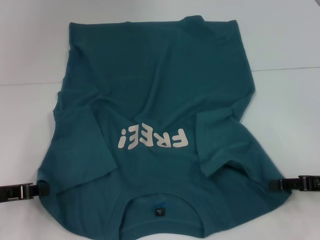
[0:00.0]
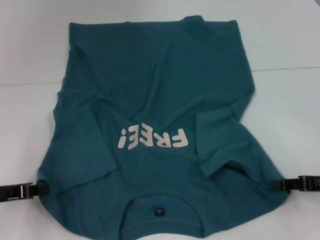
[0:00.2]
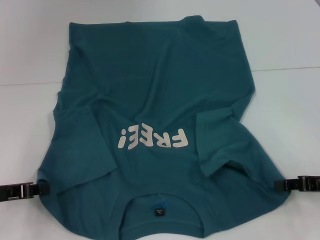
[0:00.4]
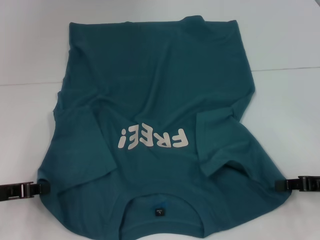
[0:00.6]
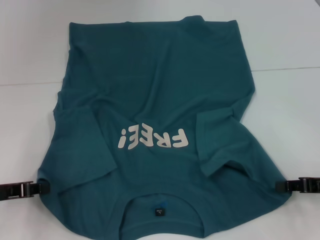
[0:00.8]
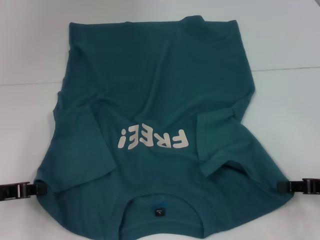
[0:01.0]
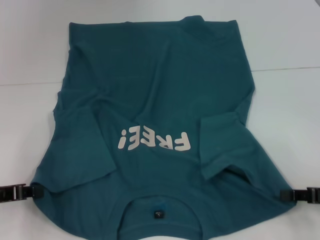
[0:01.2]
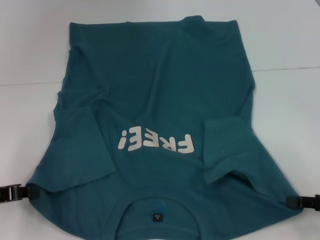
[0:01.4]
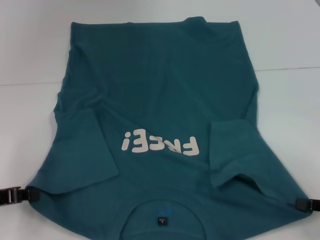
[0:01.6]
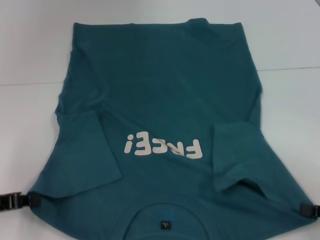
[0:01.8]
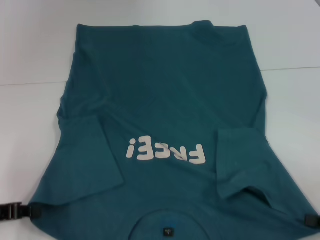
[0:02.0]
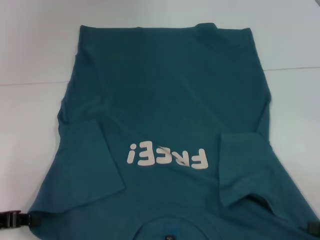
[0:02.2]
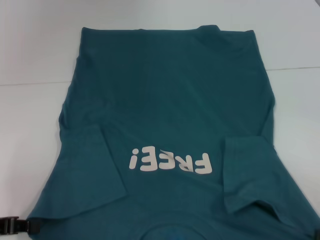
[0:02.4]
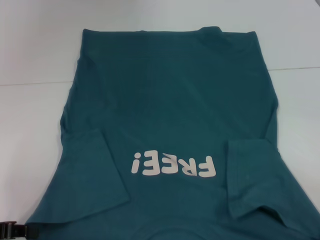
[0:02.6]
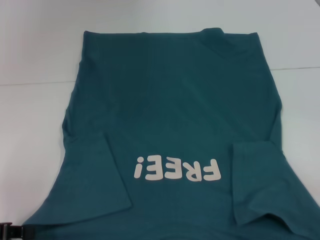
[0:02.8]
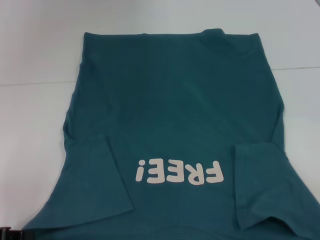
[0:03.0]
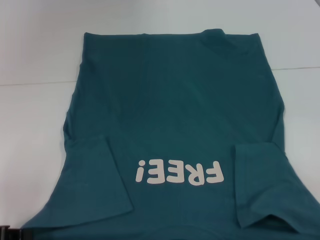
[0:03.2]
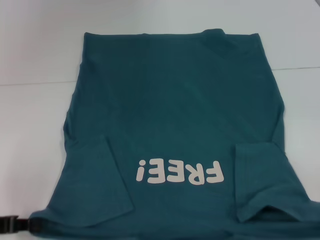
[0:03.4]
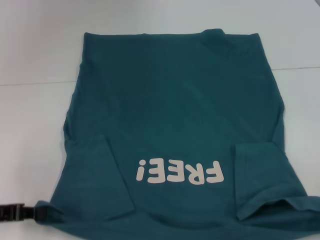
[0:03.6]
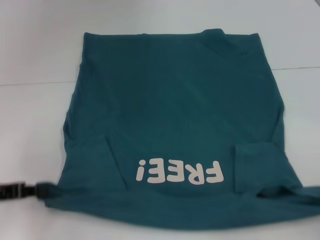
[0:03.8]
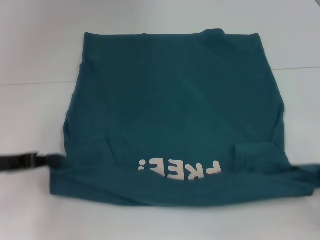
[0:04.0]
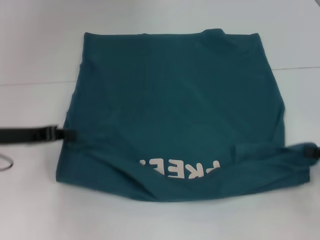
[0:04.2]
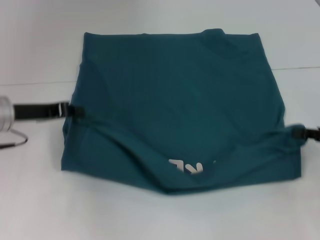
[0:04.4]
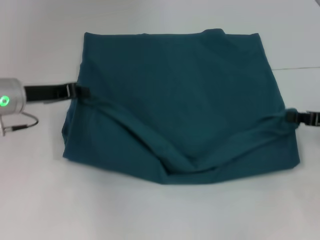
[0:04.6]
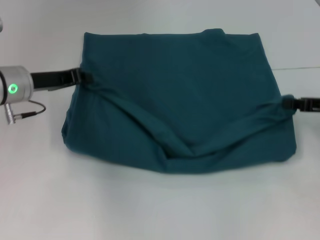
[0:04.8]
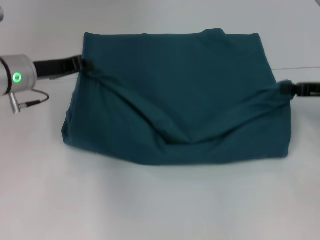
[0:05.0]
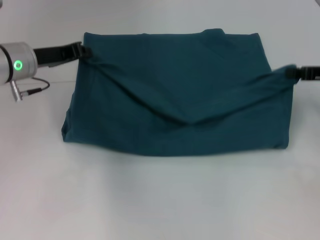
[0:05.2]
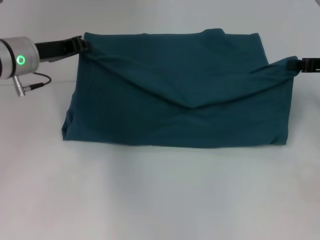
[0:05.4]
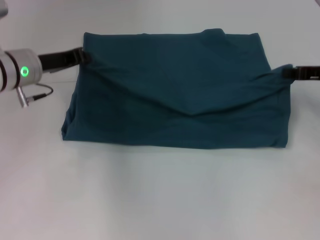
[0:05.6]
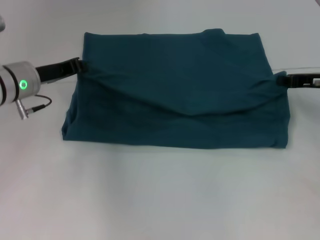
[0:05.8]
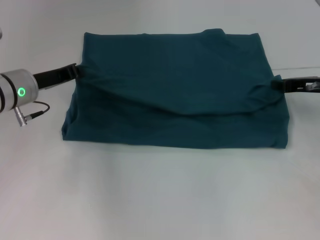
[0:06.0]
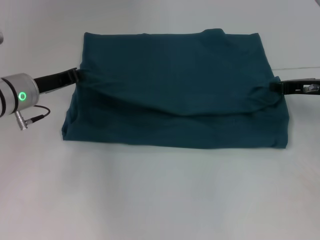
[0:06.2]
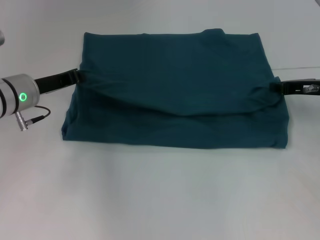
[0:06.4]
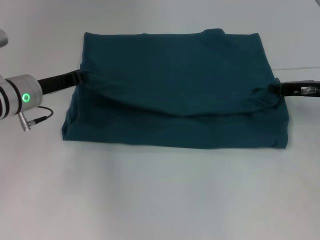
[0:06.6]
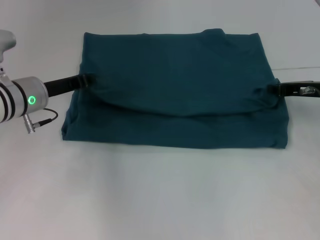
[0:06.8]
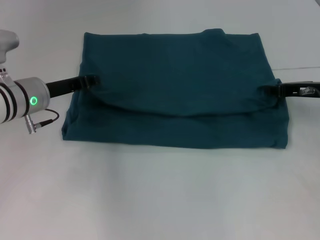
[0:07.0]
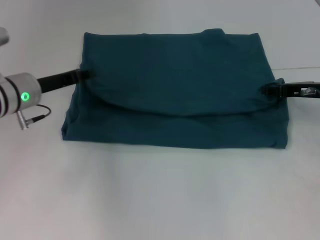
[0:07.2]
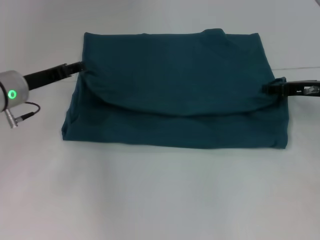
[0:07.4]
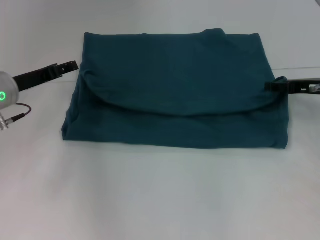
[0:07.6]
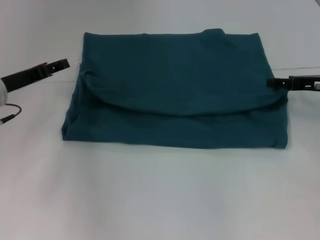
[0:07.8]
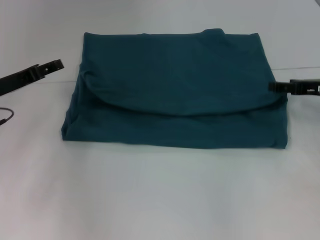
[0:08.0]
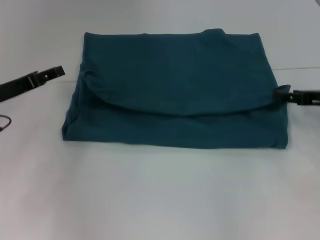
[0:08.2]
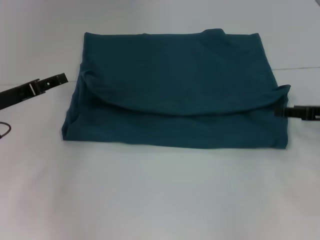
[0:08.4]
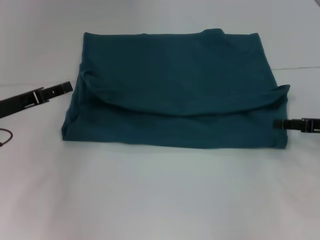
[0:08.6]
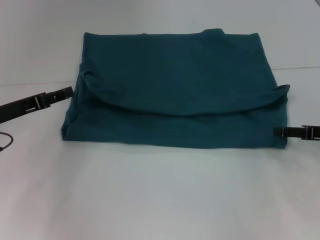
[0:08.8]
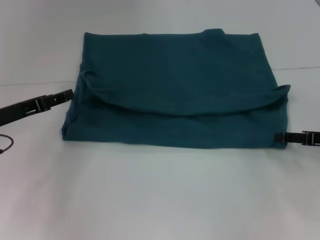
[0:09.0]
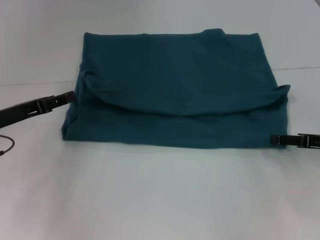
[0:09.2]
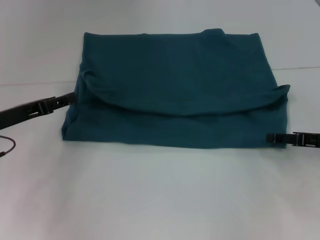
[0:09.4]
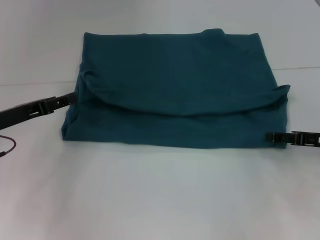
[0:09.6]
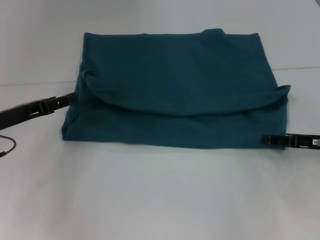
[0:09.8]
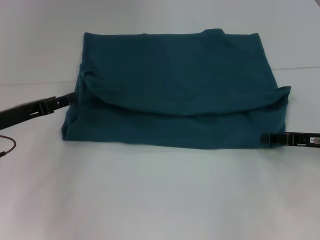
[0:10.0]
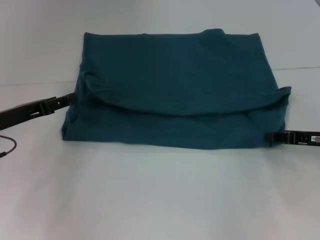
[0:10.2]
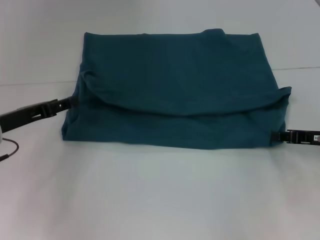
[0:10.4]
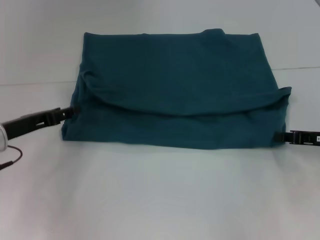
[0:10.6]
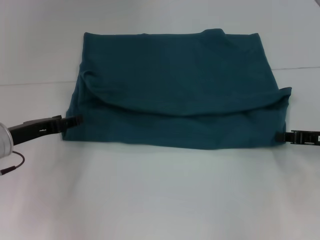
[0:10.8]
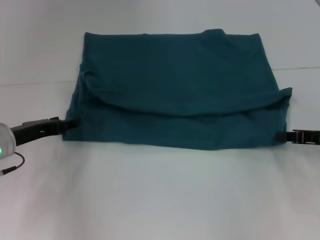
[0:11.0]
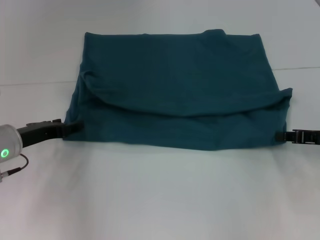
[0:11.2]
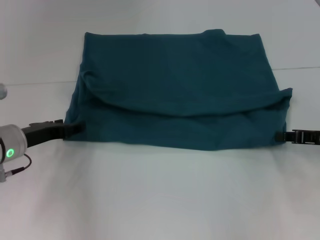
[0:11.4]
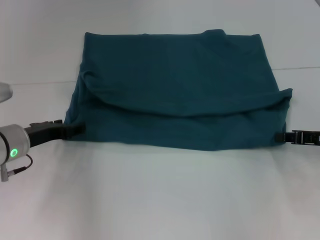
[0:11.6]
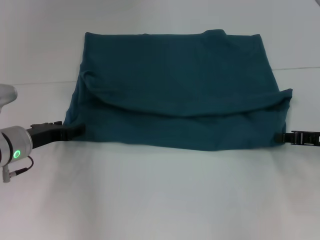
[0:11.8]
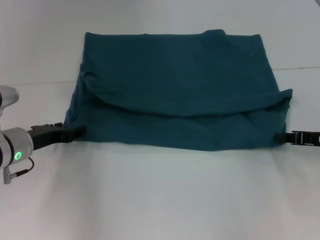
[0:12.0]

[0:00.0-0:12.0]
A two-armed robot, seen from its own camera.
Step, 0.6 to 8.2 s: Fold the clothes to the left.
Step, 0.6 to 8.2 s: Fold the clothes to the right.
0.0 to 1.6 s: The right gripper heads backward, covering some 5 cm, and closes.
1.6 to 3.0 s: The right gripper travels backward by about 5 cm.
3.0 to 4.4 s: The left gripper travels forward and to the right by roughly 15 cm. Meanwhile the right gripper travels forward by roughly 15 cm.
4.4 to 6.0 s: The right gripper shifts about 10 cm forward.
6.0 to 7.6 s: The left gripper opens up. Meanwhile the right gripper opens.
7.6 to 9.0 s: The grippers both shift backward by about 5 cm.
9.0 to 10.4 s: The right gripper closes its fingers.
10.4 to 12.0 s: The left gripper shifts by roughly 5 cm.

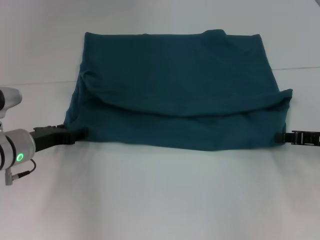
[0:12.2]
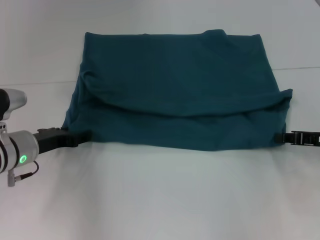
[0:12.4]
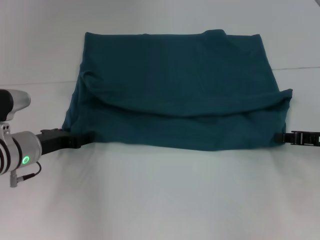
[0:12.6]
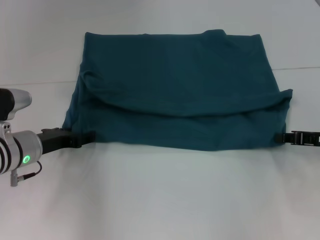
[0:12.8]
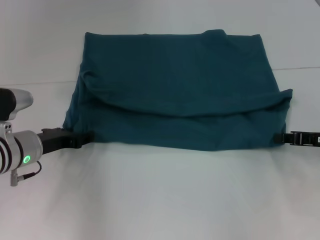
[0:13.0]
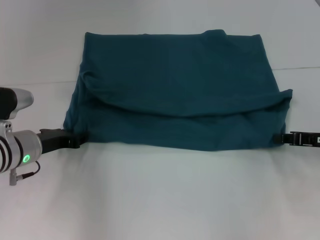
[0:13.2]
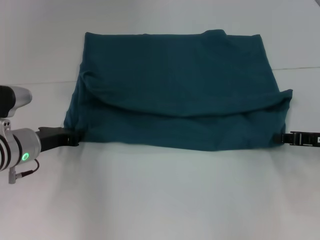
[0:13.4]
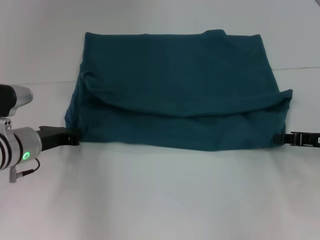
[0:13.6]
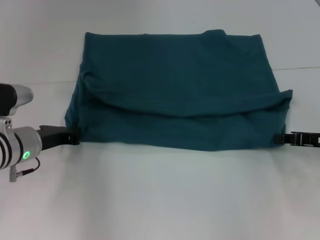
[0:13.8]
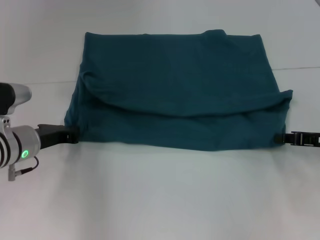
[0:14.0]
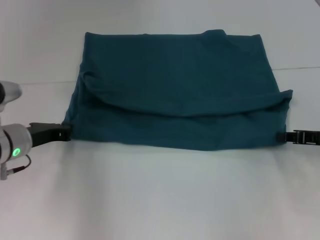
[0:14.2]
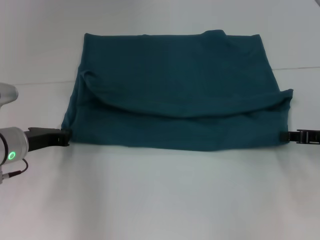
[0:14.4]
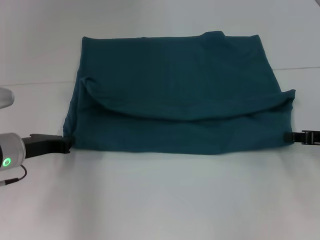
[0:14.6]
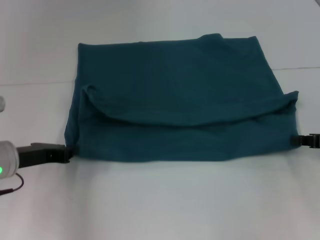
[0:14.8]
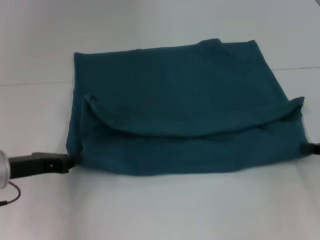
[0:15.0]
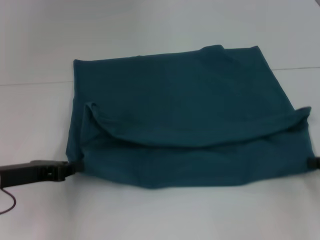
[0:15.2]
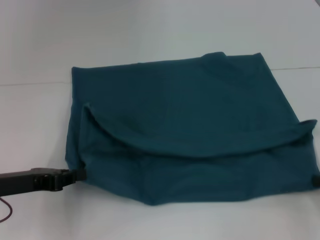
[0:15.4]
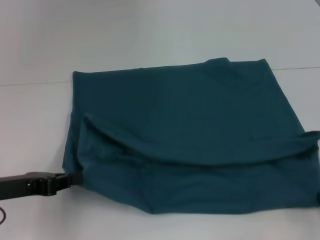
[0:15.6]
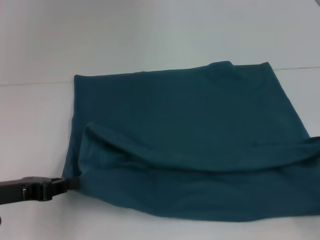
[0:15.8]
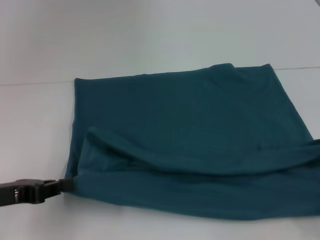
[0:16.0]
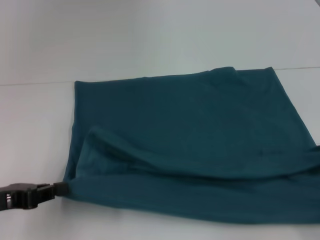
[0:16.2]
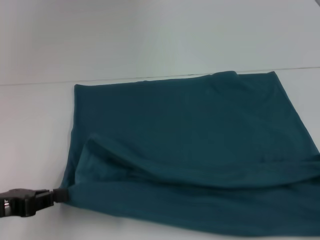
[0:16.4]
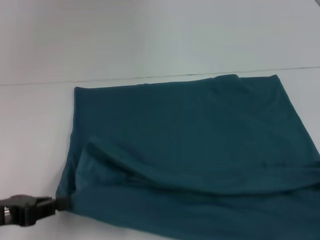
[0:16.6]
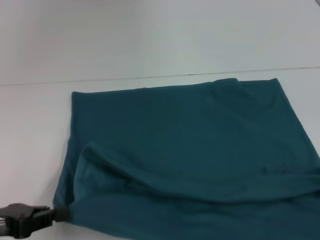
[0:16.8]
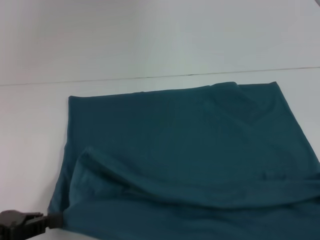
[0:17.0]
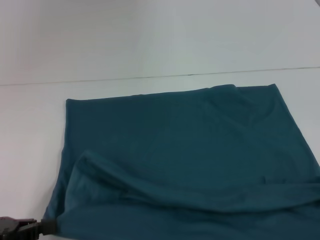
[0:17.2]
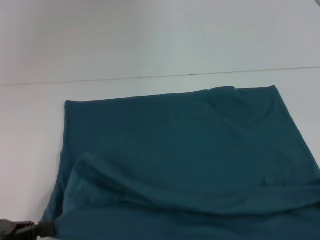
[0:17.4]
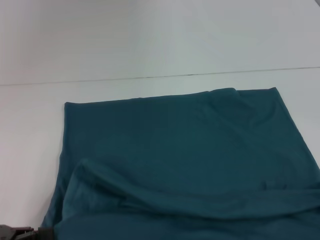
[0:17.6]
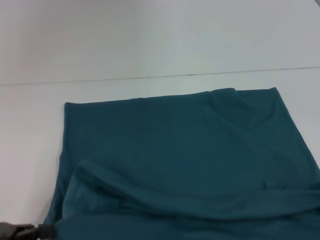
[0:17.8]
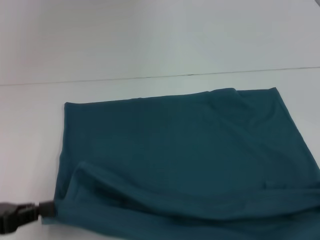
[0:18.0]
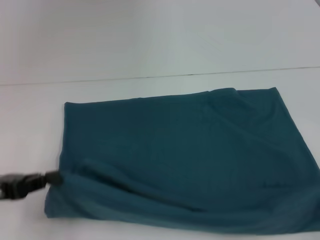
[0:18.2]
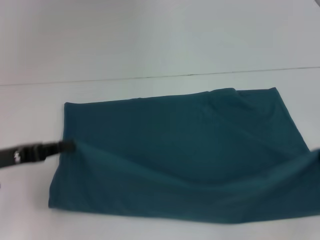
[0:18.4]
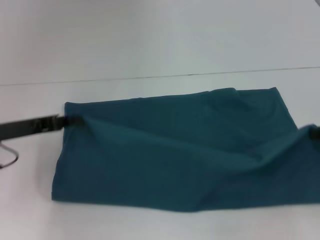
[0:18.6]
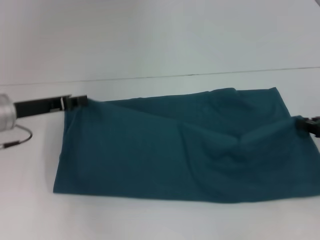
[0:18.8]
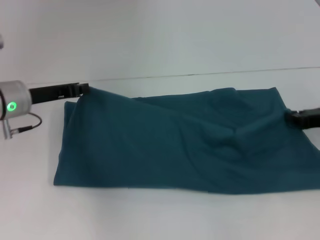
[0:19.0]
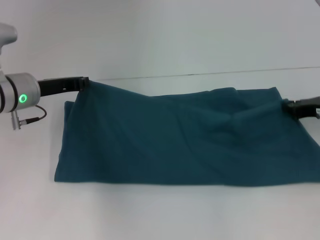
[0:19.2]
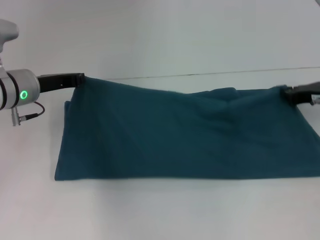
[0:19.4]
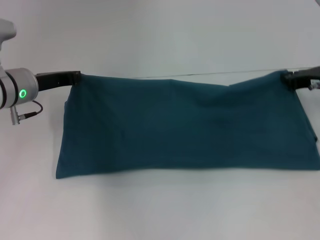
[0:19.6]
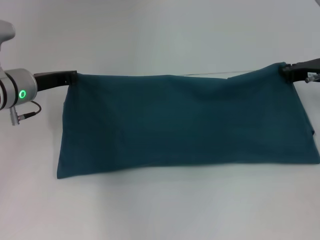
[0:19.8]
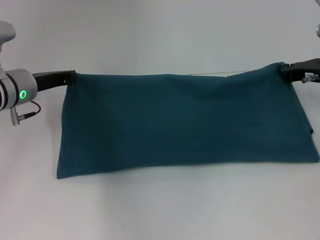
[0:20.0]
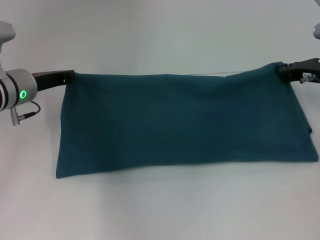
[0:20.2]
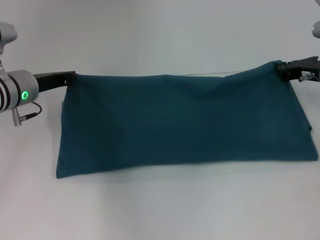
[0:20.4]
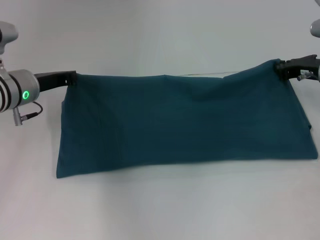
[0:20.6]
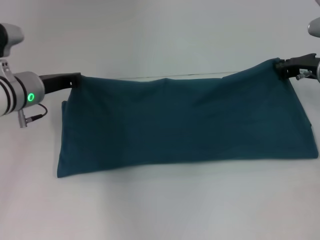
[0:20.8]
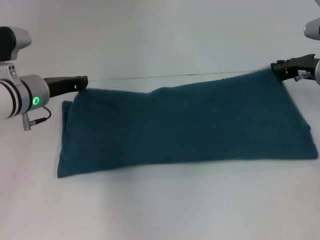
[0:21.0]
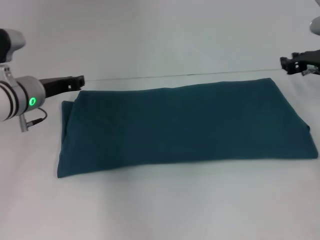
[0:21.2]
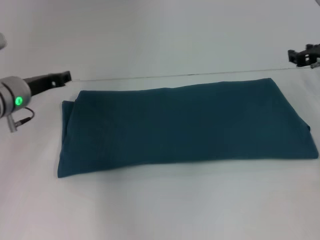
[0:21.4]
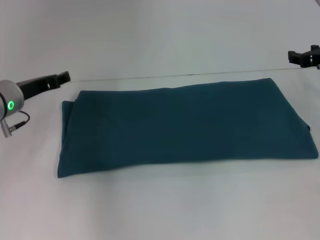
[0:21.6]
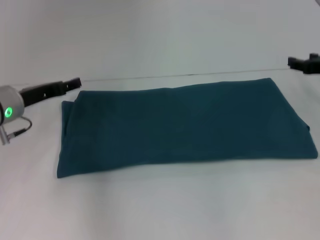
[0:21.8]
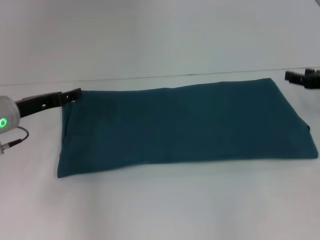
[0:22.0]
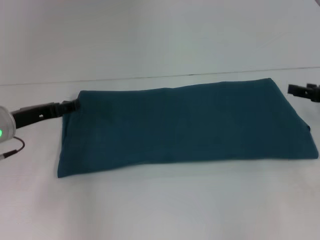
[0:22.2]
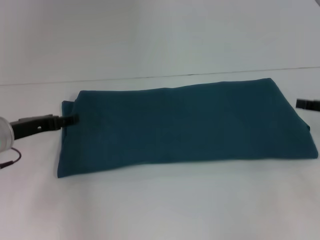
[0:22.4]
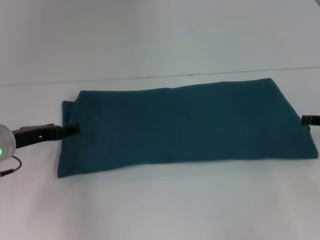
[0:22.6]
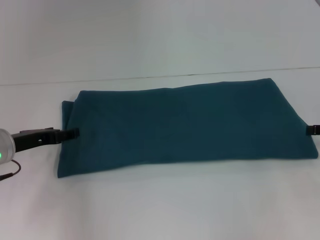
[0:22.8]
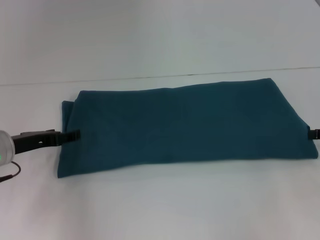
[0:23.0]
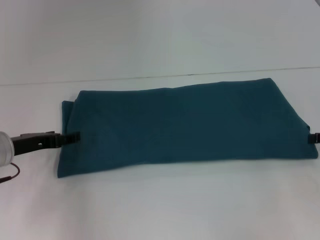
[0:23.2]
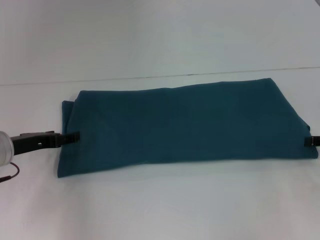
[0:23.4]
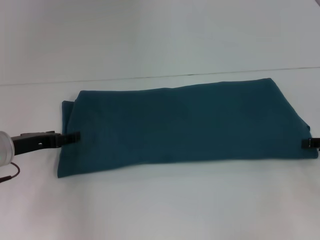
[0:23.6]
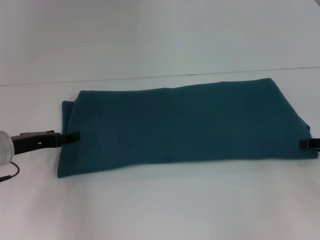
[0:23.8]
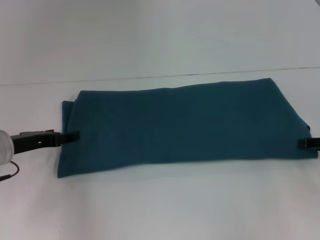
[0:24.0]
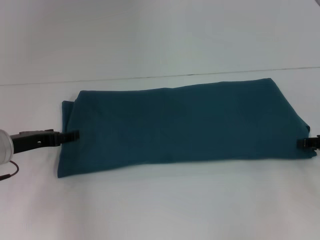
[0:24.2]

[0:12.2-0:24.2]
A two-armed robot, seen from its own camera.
Step, 12.2 to 16.0 s: Pull the clothes with your left hand.
Step, 12.2 to 16.0 s: Pull the clothes with your right hand.
Step, 16.2 to 21.2 s: Fold the clothes to the right.
12.2 to 13.8 s: The left gripper closes its fingers.
13.8 to 15.2 s: The right gripper shifts by approximately 5 cm; the left gripper travels backward by roughly 10 cm.
15.2 to 16.6 s: The right gripper is displaced backward by roughly 10 cm. Meanwhile the left gripper heads backward, covering about 5 cm.
16.6 to 18.2 s: The grippers make only small movements.
18.2 to 19.8 s: The left gripper goes some 20 cm forward and to the right. Meanwhile the right gripper travels forward and to the left by roughly 20 cm.
19.8 to 21.2 s: The grippers make only small movements.
21.2 to 22.6 s: The right gripper goes approximately 15 cm backward and to the right, and opens its fingers; the left gripper shifts some 10 cm backward and to the left, and opens its fingers.
22.6 to 24.2 s: The grippers stay close to where they were, moving slightly.
